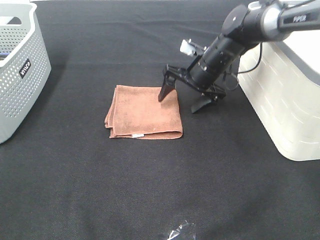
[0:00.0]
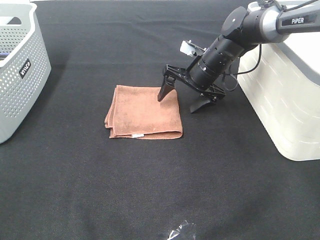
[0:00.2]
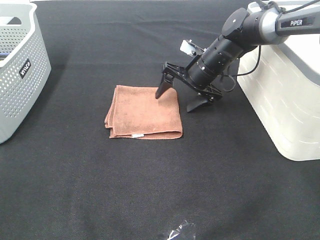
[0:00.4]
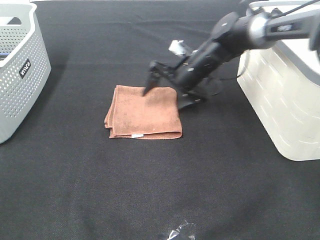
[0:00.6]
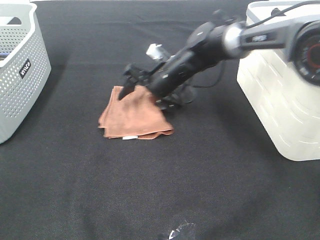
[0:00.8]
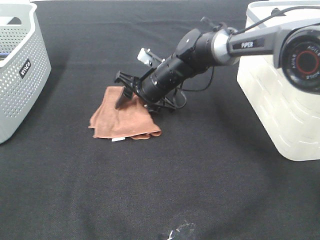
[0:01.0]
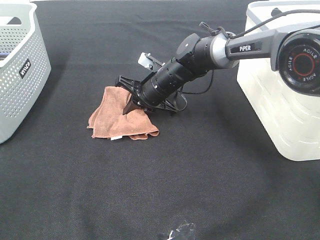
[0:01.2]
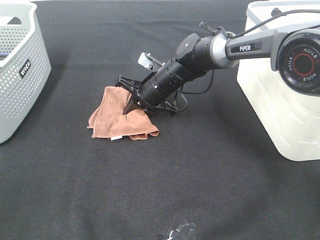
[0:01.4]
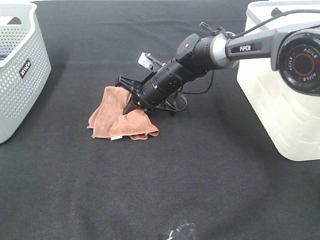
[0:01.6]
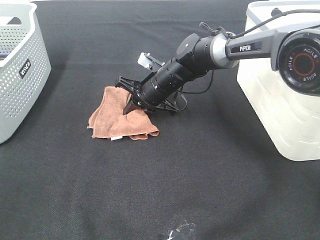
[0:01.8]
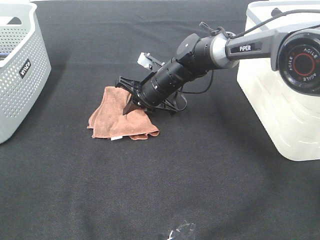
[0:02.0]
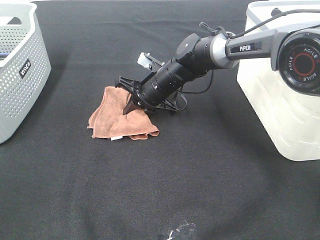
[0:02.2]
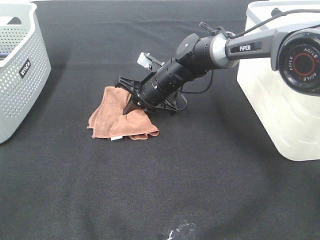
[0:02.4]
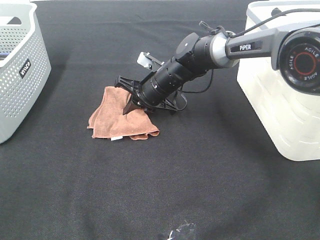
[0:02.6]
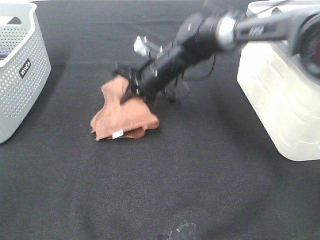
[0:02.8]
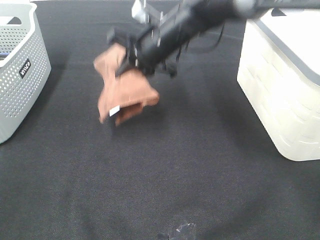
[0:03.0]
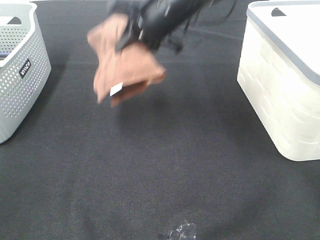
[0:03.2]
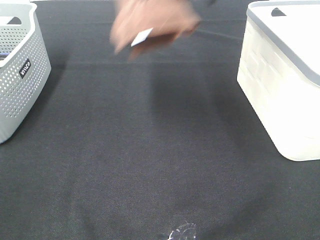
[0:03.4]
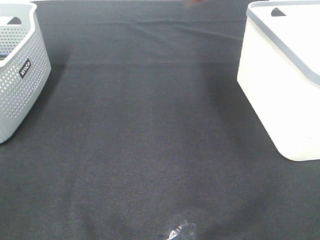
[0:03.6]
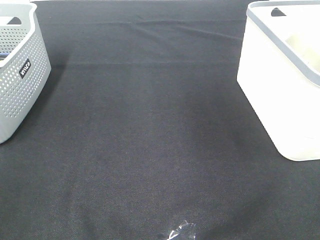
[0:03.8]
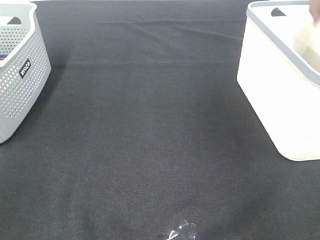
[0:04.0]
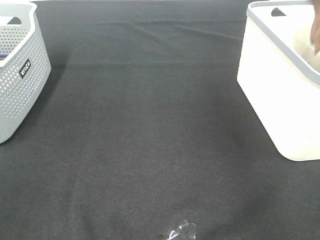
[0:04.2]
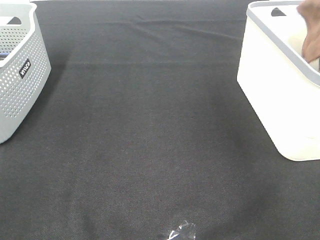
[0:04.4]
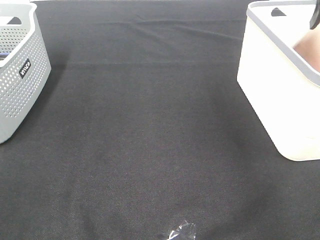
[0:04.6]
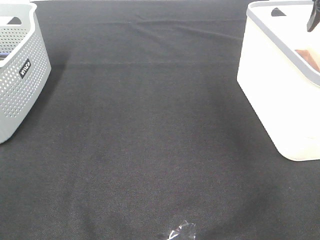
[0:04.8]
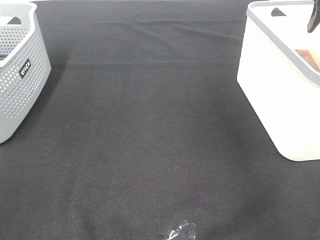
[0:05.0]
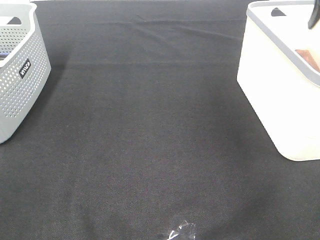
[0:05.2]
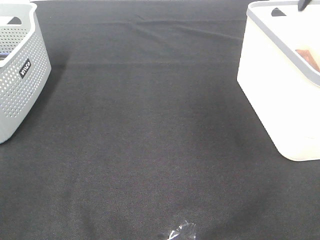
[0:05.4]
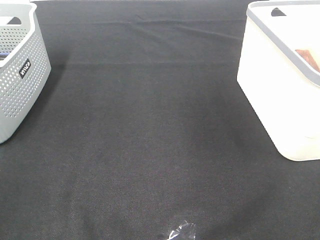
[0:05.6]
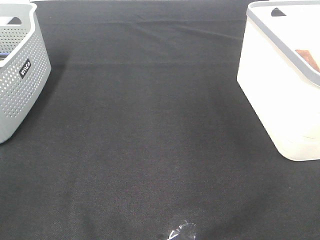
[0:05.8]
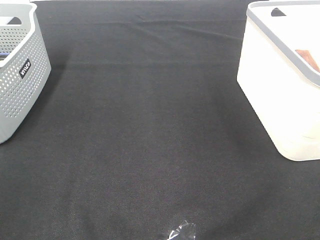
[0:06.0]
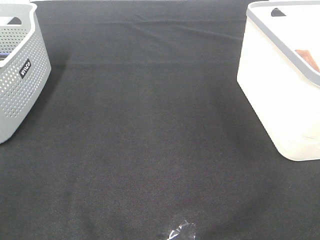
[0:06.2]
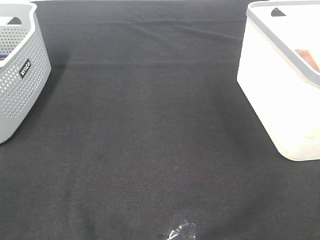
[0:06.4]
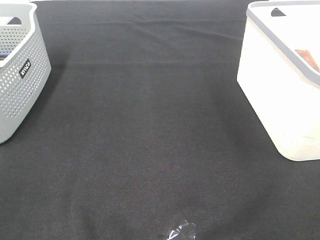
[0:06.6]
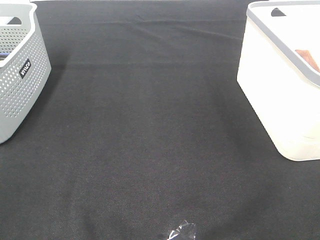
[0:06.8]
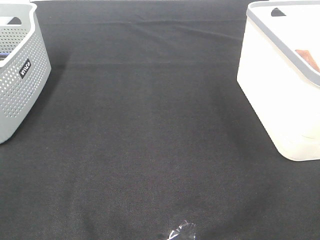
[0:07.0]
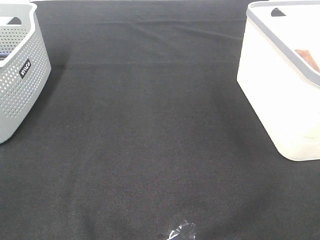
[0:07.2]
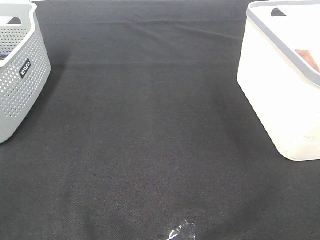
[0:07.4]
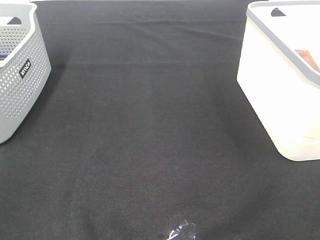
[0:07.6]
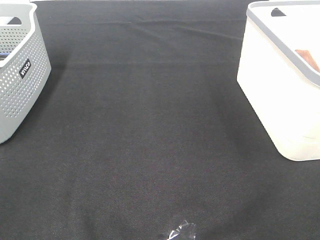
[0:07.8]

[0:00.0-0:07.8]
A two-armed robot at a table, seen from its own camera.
Step, 0:01.4 to 0:04.6: Right hand: place the brown towel in right basket.
0:00.0 to 0:01.6: The right gripper moves to the left, approximately 10 cm, and closes its fingers.
0:01.6 to 0:03.2: The right gripper goes some 20 cm upward.
0:03.2 to 0:04.6: The right gripper is displaced to the right by about 30 cm, and opens.
0:04.6 to 0:06.2: The right gripper moves backward, some 40 cm.

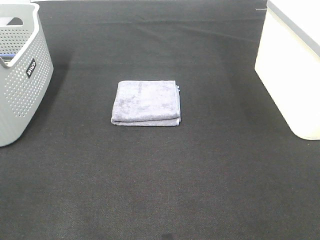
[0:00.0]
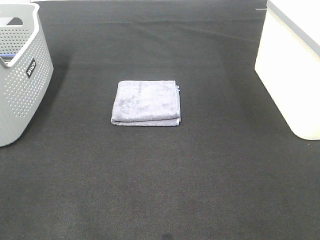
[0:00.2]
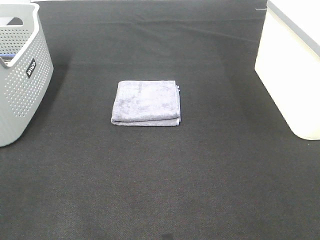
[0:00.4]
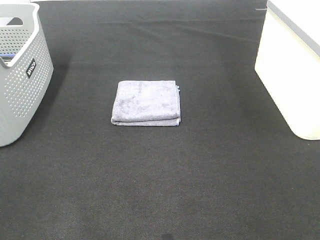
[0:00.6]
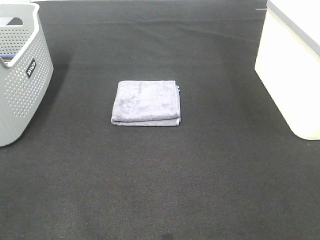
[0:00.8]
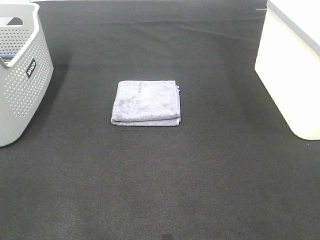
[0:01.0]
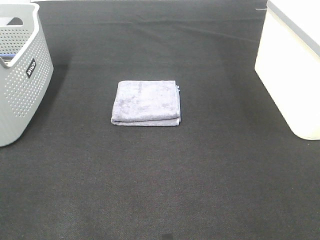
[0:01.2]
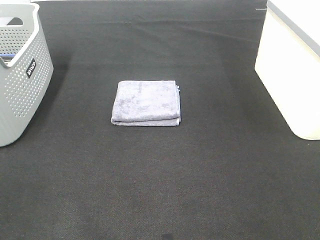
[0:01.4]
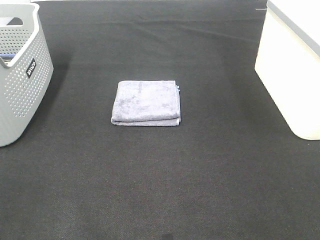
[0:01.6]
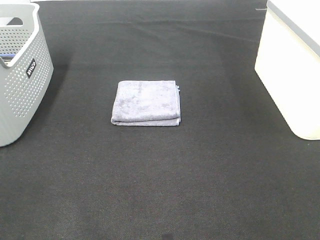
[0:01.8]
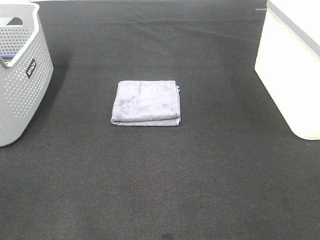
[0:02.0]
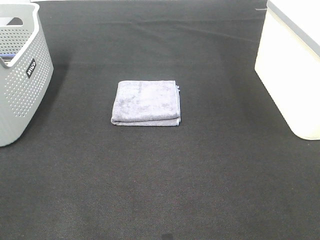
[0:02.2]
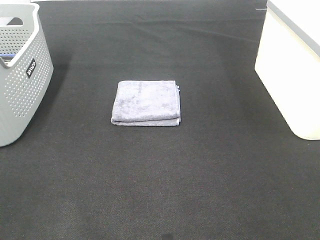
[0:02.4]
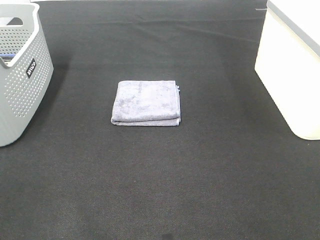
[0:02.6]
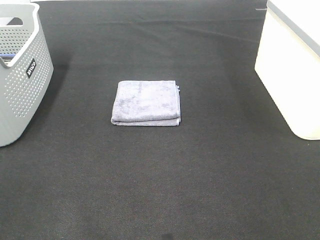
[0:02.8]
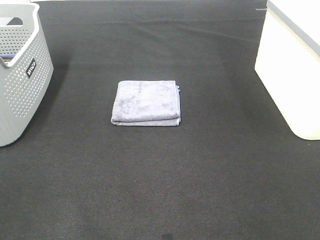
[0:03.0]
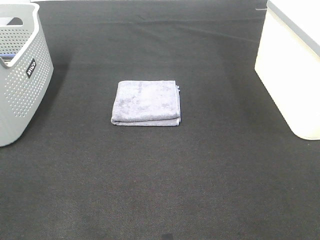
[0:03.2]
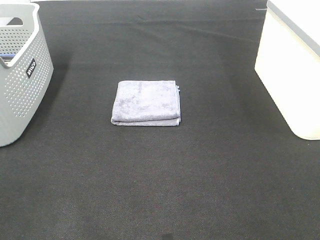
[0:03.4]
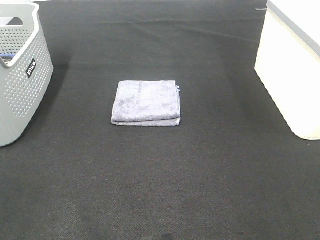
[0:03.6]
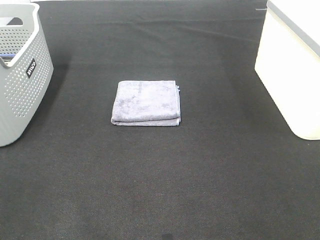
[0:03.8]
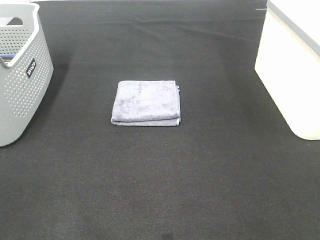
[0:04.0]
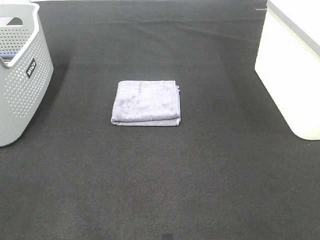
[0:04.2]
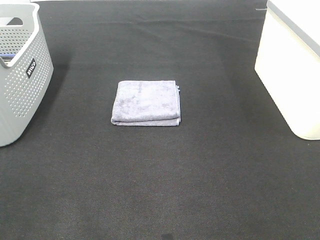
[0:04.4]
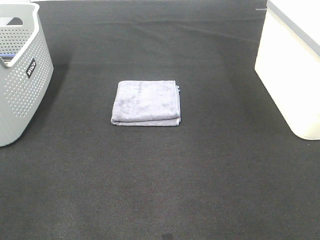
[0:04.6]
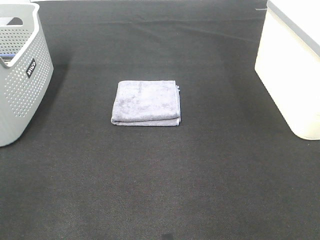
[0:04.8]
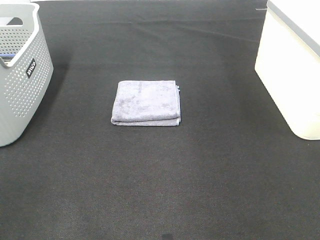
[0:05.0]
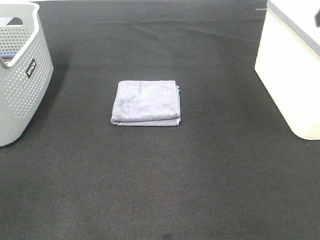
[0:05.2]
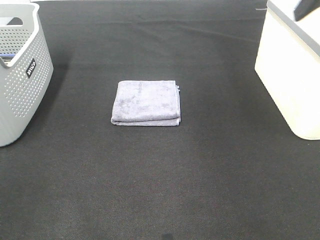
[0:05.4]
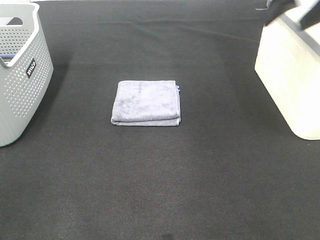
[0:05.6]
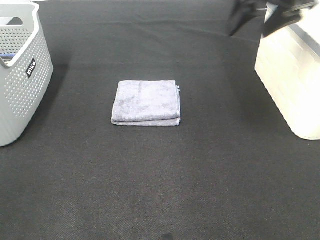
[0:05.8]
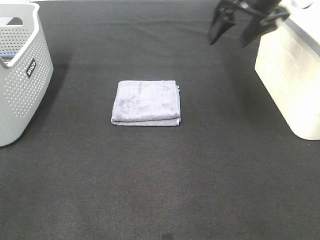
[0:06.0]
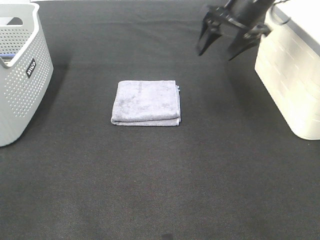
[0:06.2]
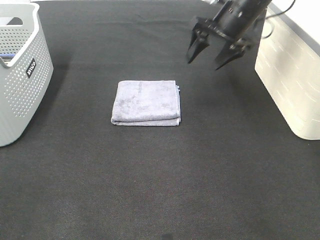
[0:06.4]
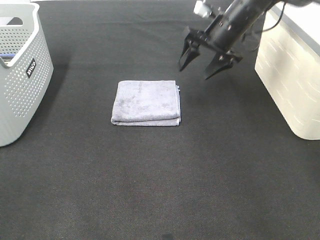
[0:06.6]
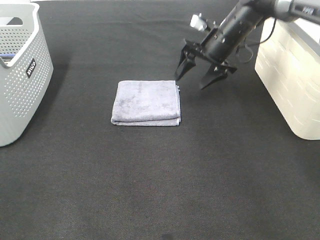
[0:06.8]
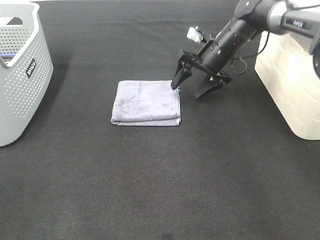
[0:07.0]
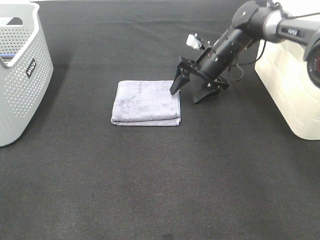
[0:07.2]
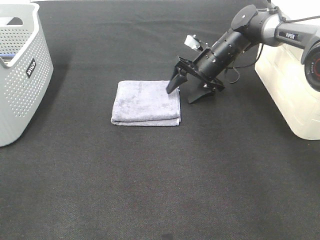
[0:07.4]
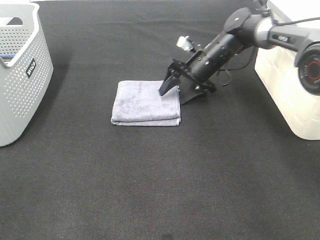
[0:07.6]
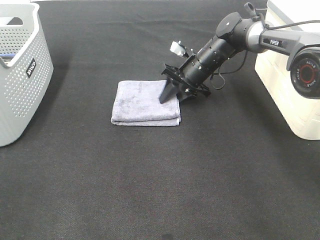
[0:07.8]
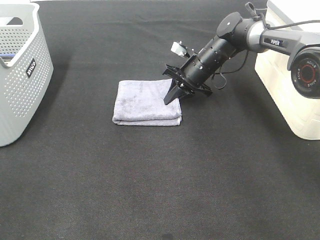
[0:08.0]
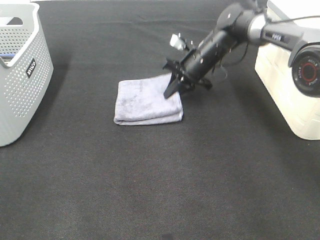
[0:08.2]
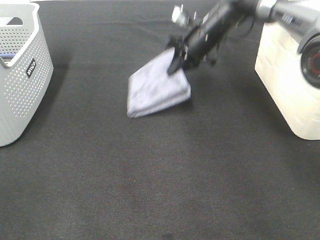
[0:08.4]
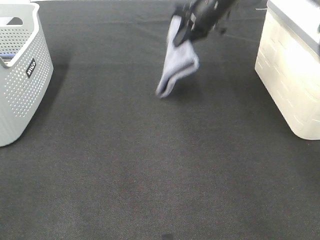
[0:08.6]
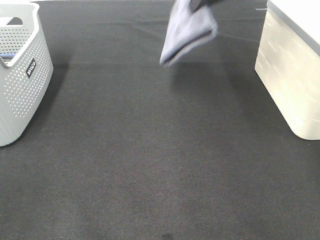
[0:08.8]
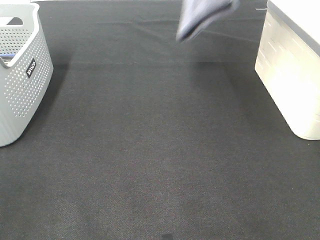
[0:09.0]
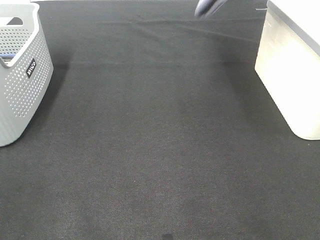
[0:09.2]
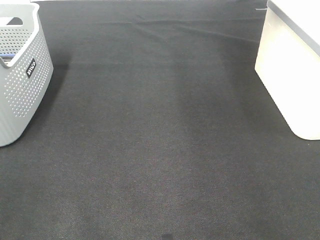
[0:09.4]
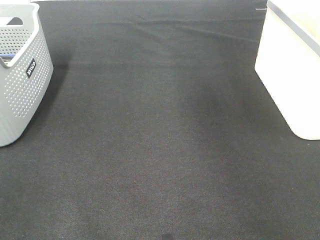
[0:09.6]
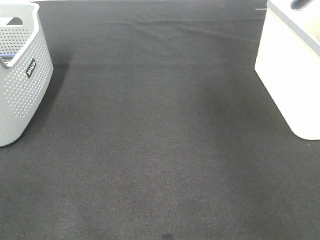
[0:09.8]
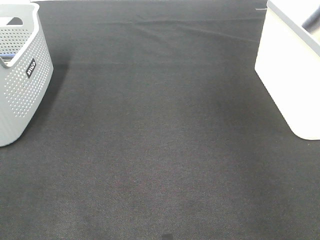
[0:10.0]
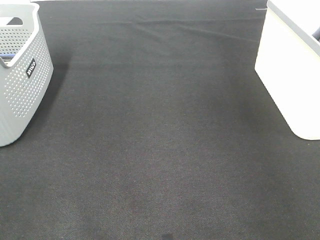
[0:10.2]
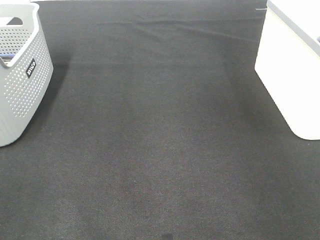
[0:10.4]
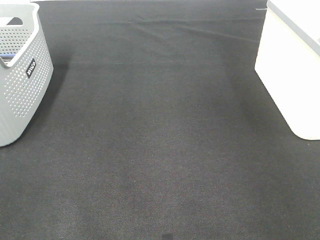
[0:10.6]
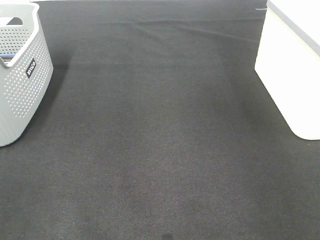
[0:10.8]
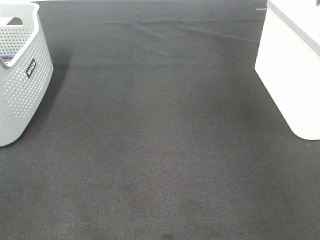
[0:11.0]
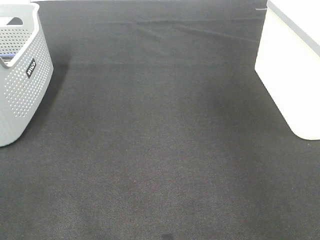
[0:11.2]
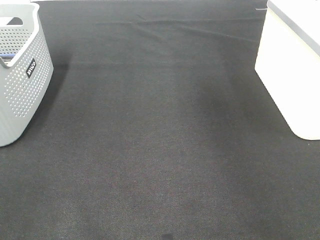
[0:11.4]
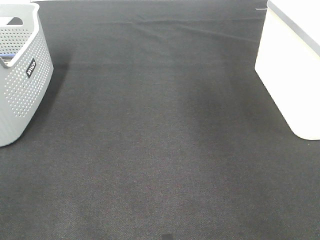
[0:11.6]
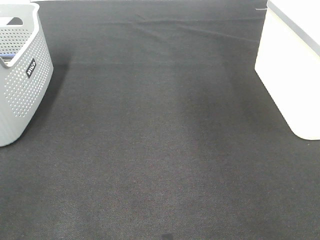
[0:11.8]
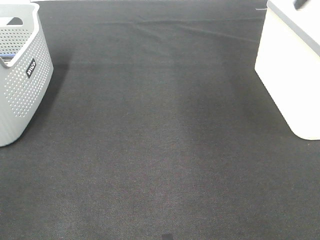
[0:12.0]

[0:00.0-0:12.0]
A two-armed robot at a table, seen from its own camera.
Step, 0:00.0 to 0:08.0: Right hand: grab the folded grey towel.
Step, 0:08.2 to 0:10.8: Right hand: place the grey towel in right basket.
0:00.0 to 0:03.0: The two grippers keep their place.
0:04.4 to 0:06.0: The right gripper moves forward, about 35 cm.
0:06.0 to 0:07.6: The right gripper moves downward, about 20 cm.
0:07.6 to 0:09.0: The right gripper heads upward, covering approximately 30 cm, and closes.
0:09.0 to 0:10.4: The right gripper is displaced to the right by some 25 cm.

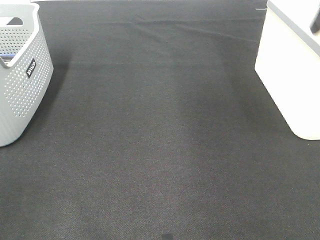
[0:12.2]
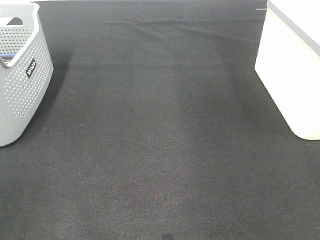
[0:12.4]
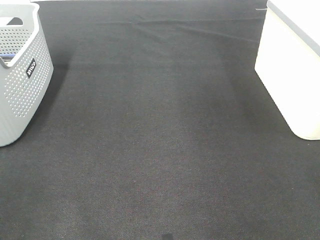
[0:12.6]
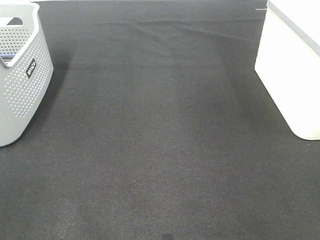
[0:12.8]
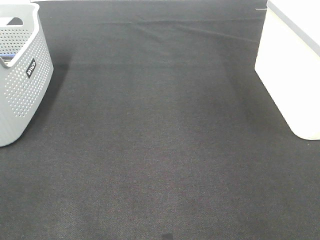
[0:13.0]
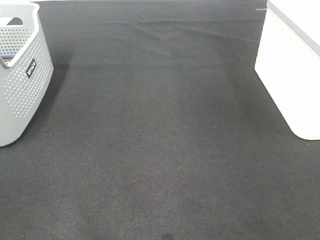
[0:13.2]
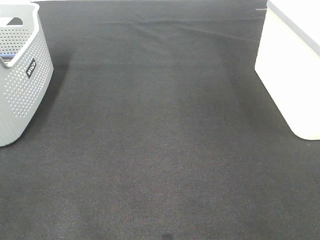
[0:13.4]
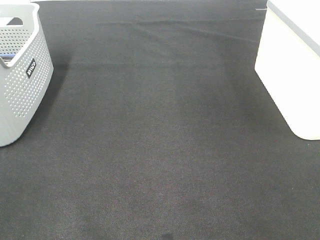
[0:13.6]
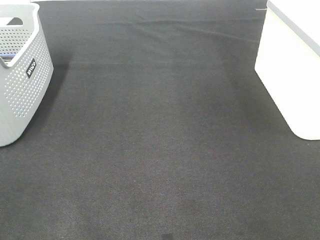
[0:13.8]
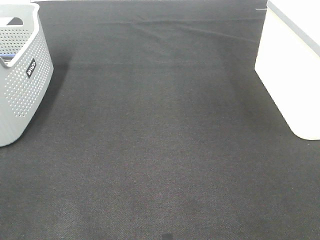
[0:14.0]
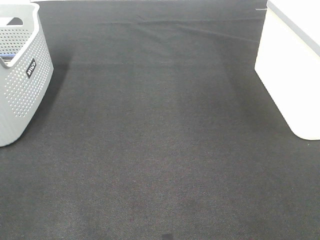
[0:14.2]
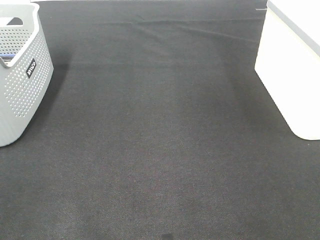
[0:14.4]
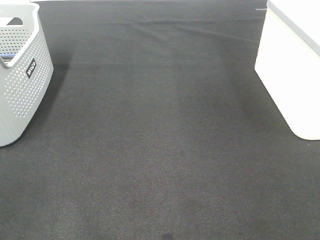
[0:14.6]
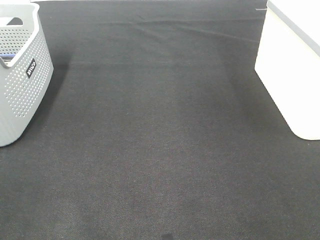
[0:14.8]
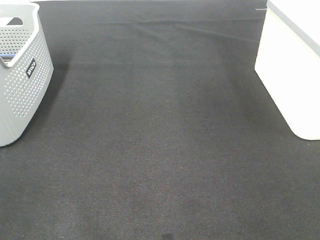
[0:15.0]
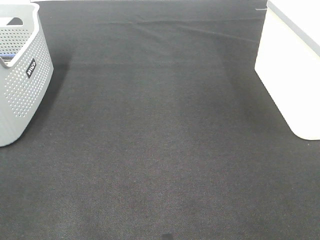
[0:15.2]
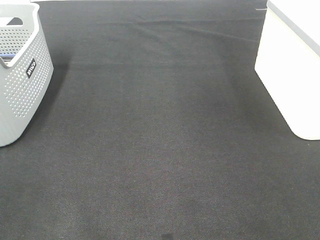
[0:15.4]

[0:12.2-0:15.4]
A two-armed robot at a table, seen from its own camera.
0:13.8 to 0:15.4: Both grippers stay put.
